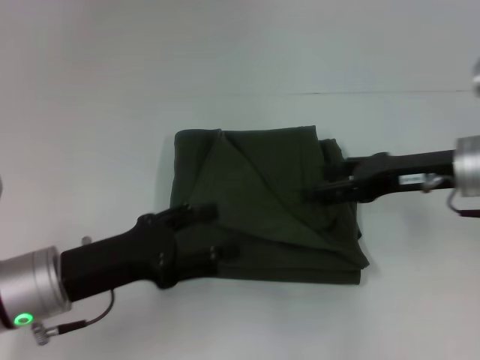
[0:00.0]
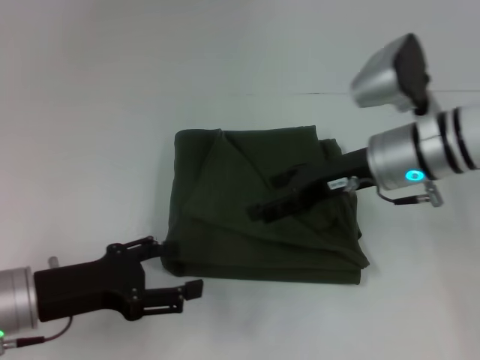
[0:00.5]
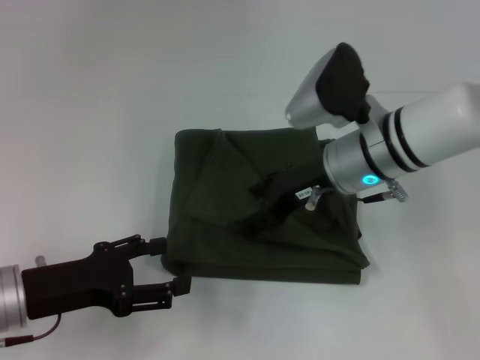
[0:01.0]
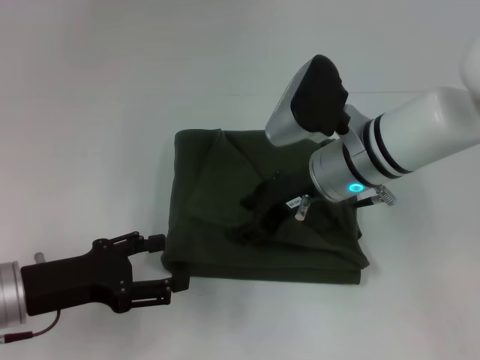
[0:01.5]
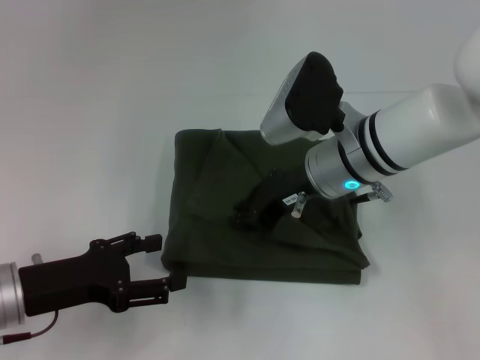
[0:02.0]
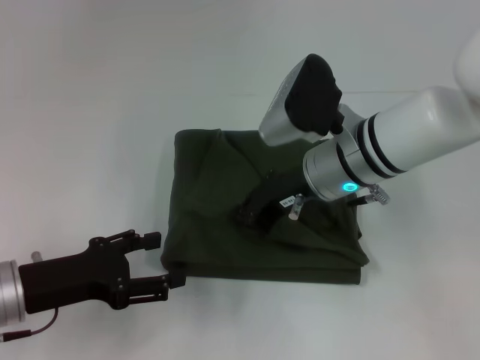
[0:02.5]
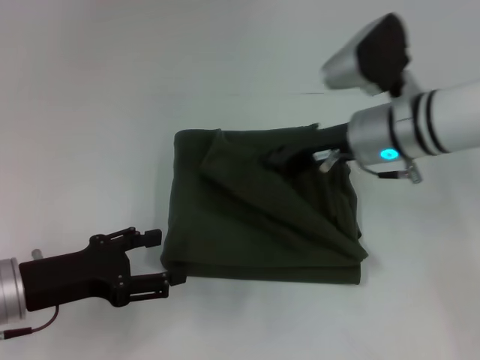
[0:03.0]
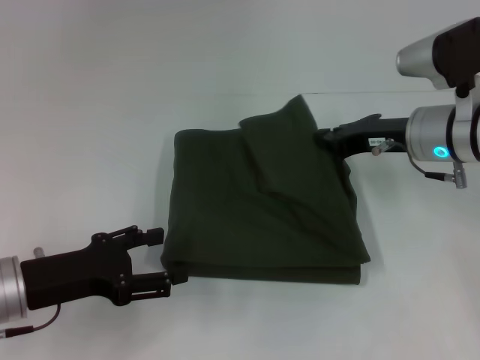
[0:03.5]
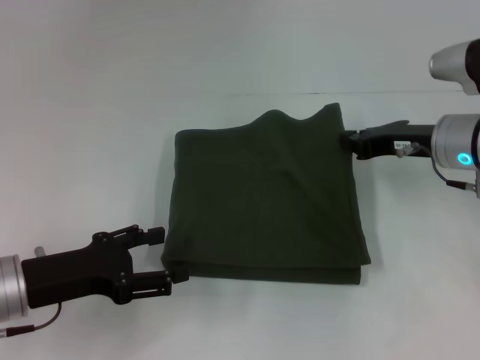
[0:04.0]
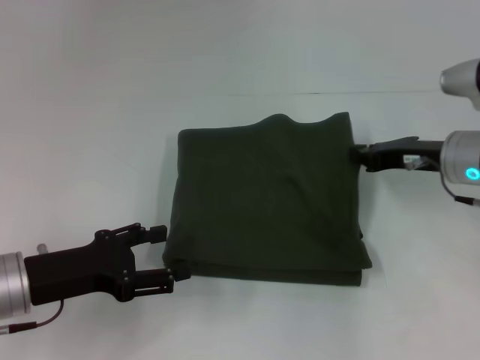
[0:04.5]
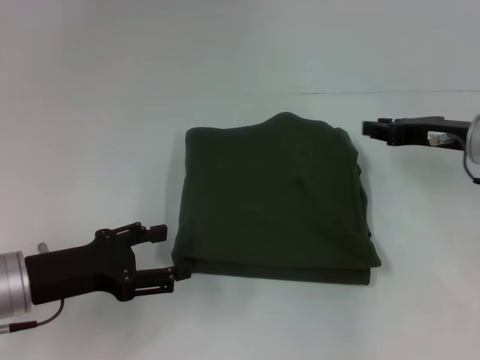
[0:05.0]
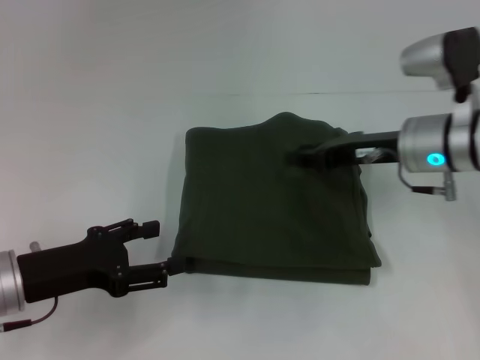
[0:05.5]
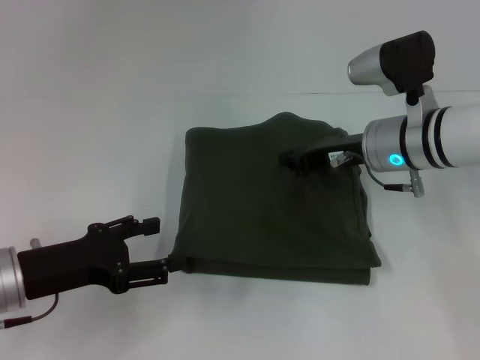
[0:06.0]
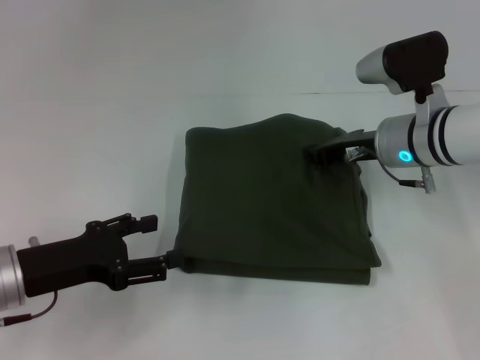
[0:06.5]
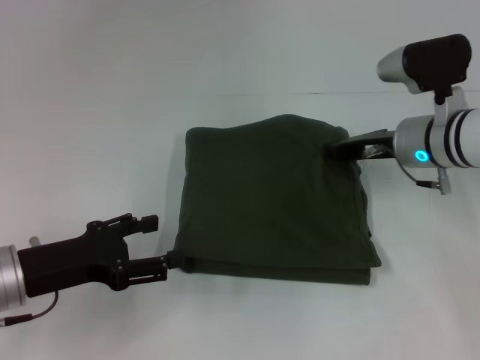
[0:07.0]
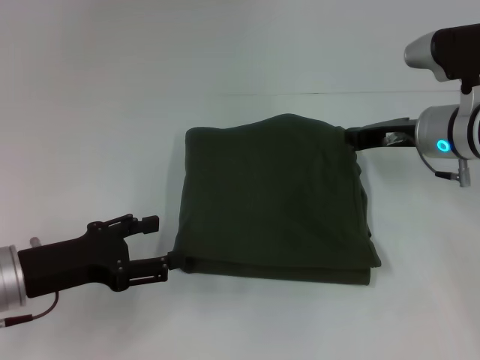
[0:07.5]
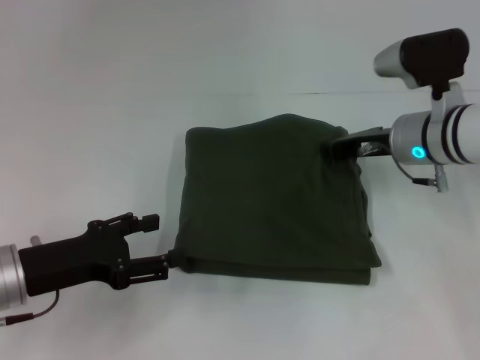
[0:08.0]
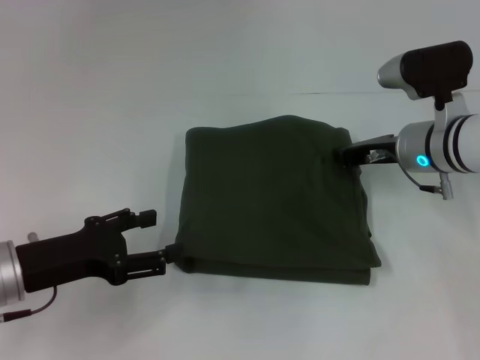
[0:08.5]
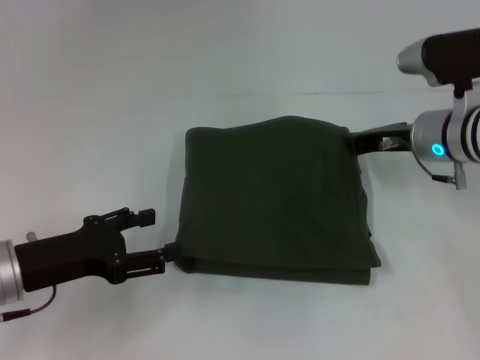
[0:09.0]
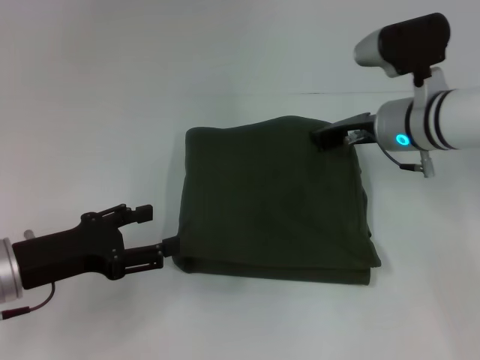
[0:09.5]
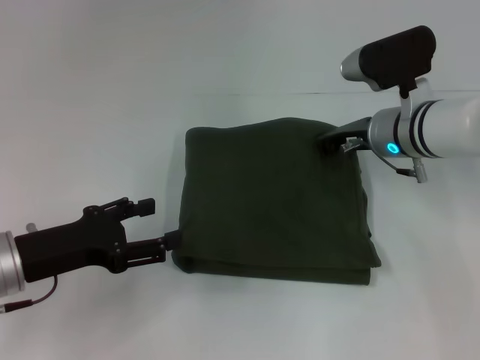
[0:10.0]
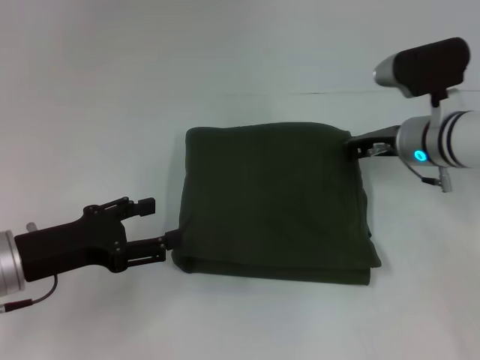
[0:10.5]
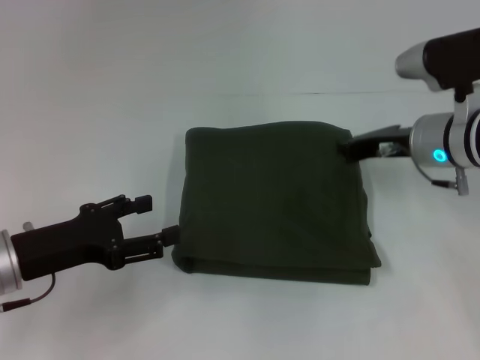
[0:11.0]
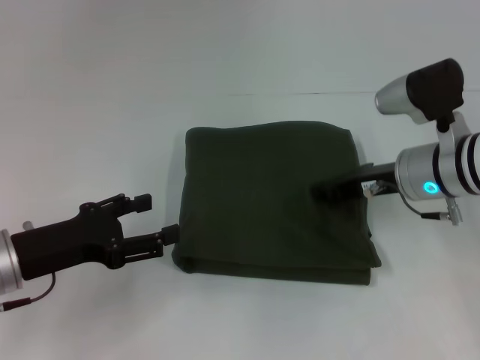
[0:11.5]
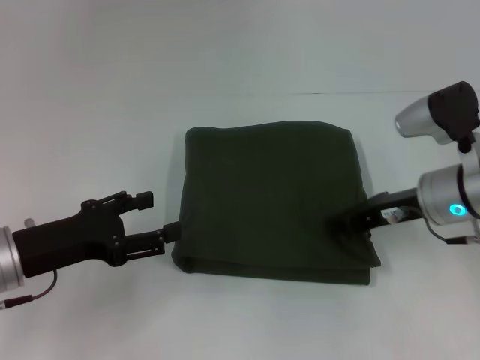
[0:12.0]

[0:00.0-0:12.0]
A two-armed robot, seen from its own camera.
0:00.0 to 0:02.0: The right gripper heads to the left, covering approximately 15 cm, and closes its fingers.
0:02.0 to 0:04.0: The right gripper is displaced to the right by roughly 15 cm.
0:04.0 to 0:06.0: The right gripper moves to the left, some 5 cm.
0:06.0 to 0:10.0: The grippers move only a little.
0:10.0 to 0:12.0: The right gripper heads backward, covering some 5 cm.

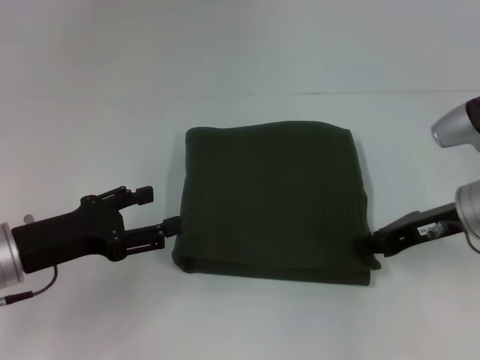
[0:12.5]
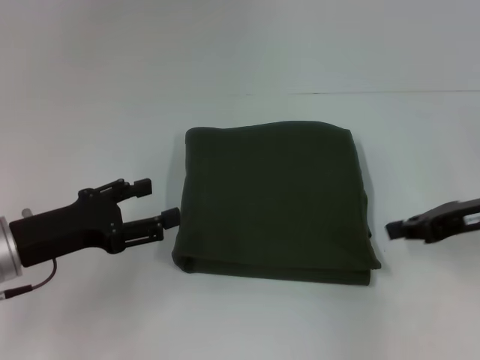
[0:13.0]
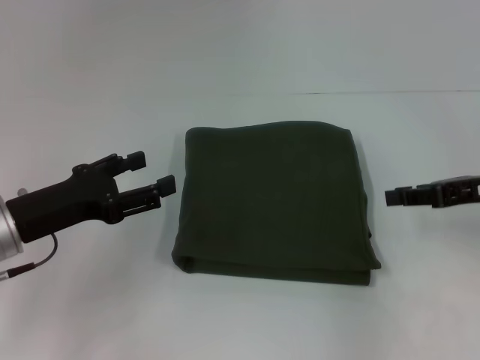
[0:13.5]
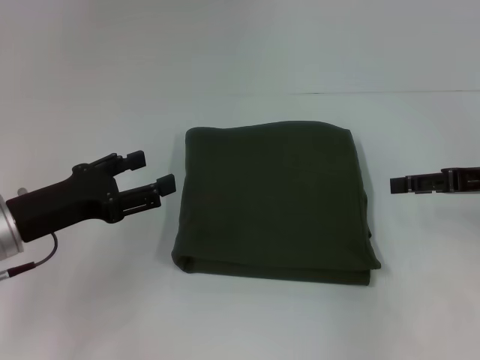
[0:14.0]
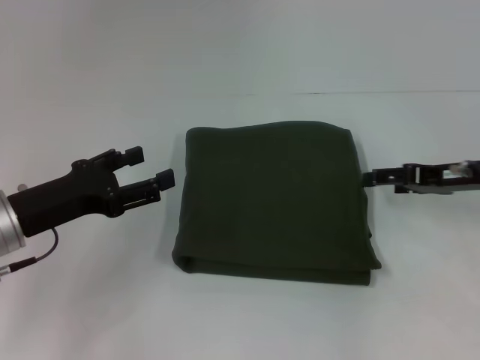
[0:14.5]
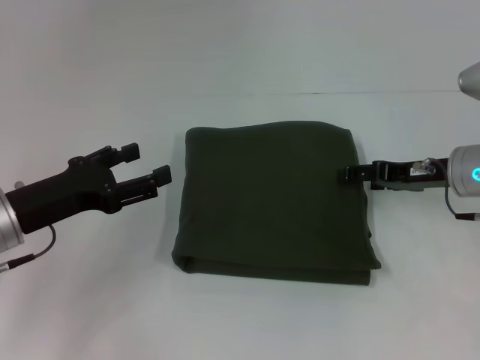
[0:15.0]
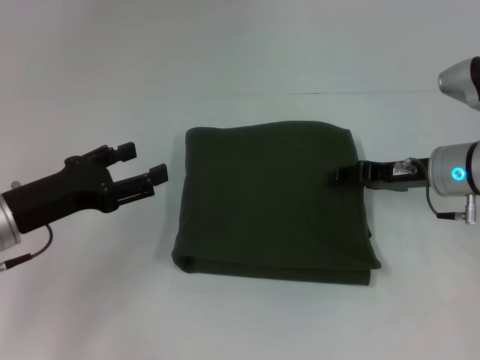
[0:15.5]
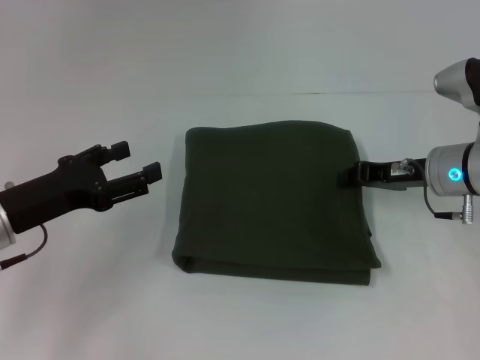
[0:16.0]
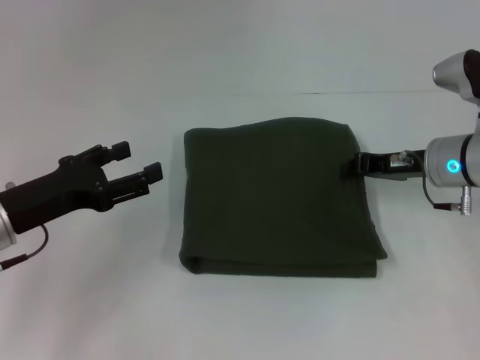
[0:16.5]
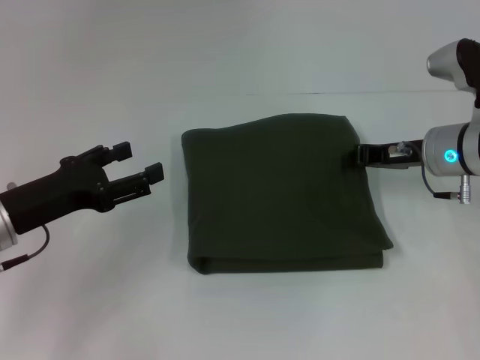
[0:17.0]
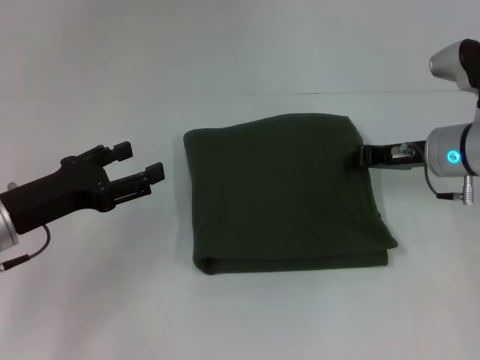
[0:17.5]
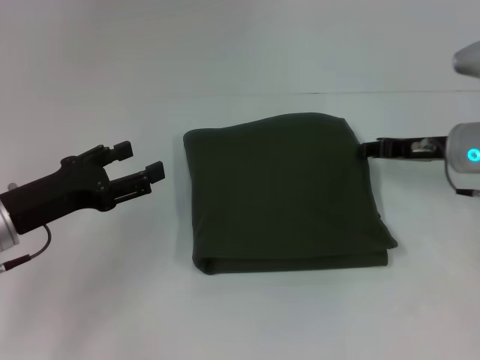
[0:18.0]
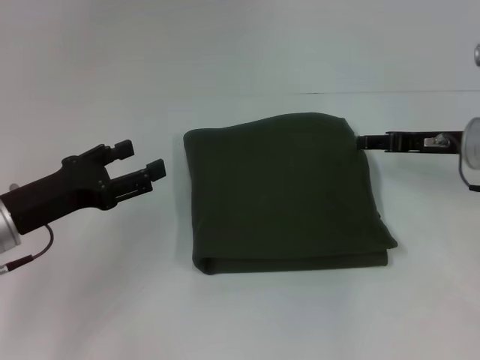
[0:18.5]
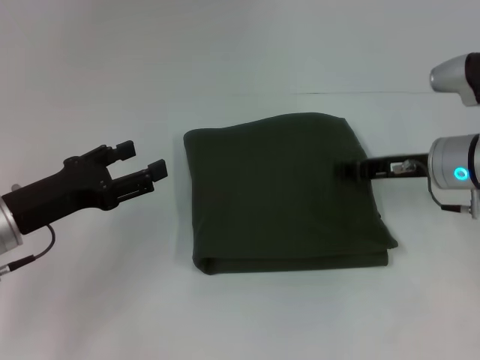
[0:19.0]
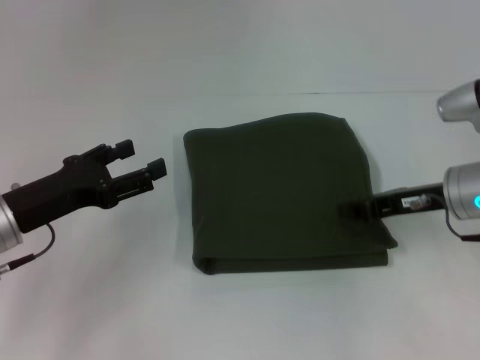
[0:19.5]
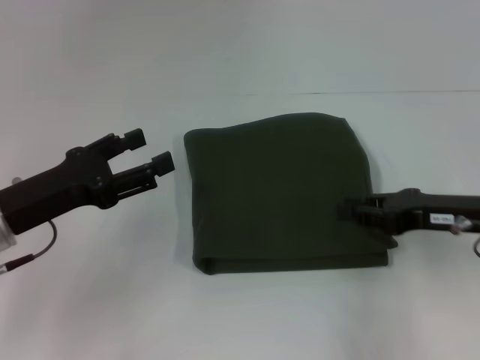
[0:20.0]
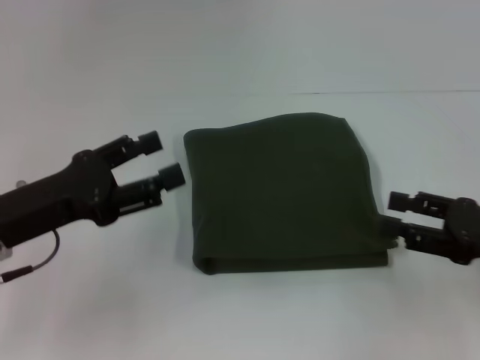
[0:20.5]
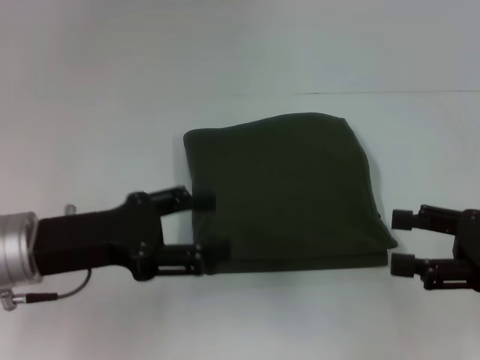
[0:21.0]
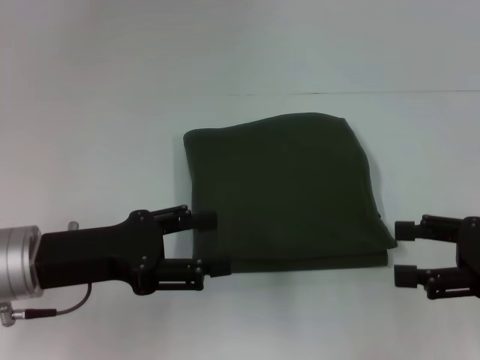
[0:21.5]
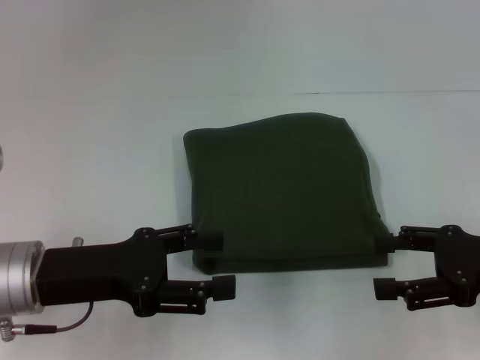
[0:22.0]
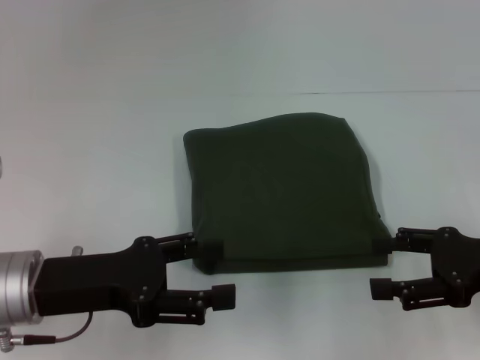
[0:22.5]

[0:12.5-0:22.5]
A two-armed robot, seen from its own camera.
0:12.5 to 0:14.5: The right gripper opens.
0:14.5 to 0:16.5: The right gripper heads to the left, covering approximately 5 cm, and closes up.
0:16.5 to 0:18.5: The right gripper opens up.
0:18.5 to 0:20.5: The right gripper moves backward, roughly 15 cm, and closes, then reopens.
0:20.5 to 0:22.5: The right gripper opens.

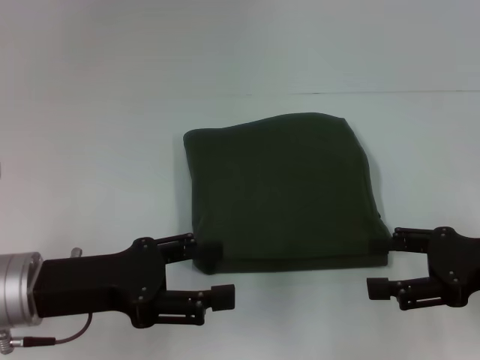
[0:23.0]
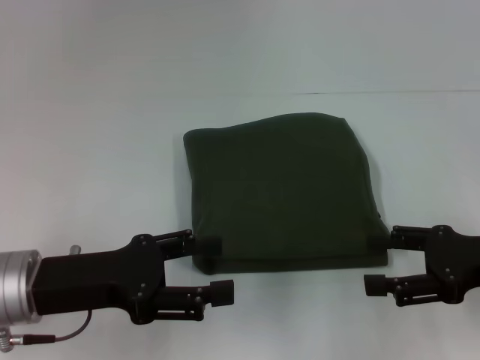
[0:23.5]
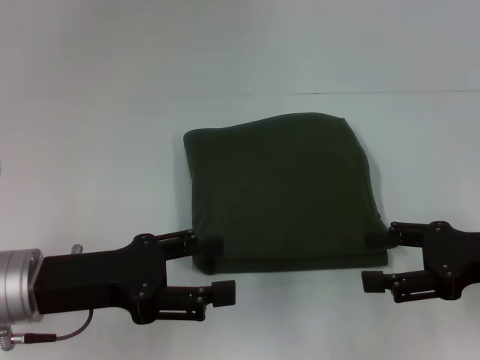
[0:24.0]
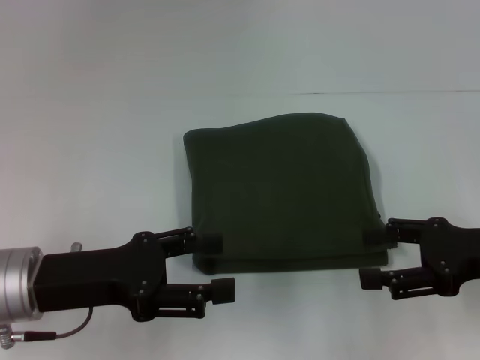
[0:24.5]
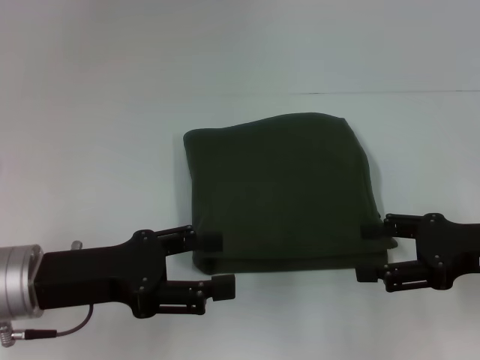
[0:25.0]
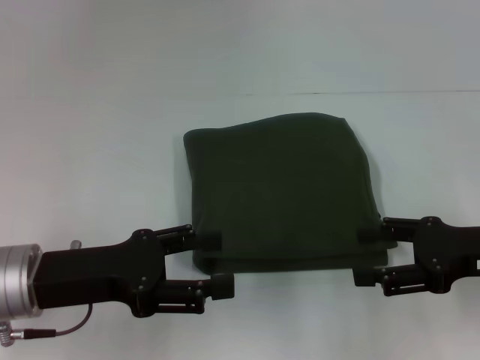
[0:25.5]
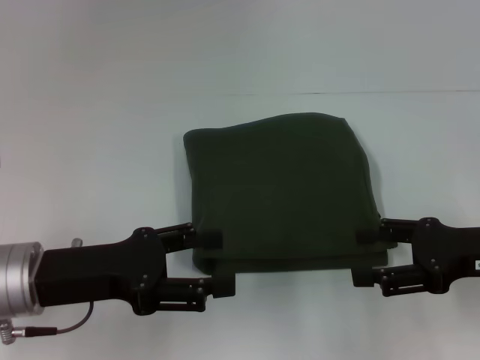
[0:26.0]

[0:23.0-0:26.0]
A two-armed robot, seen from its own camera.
0:23.0 to 0:24.5: Neither gripper changes place.
0:24.5 to 0:26.0: The two grippers keep their place.

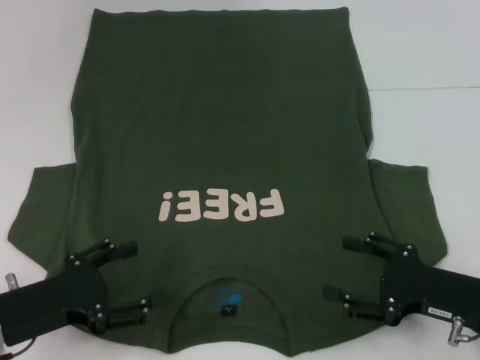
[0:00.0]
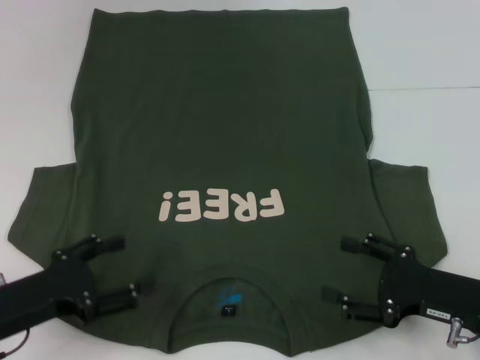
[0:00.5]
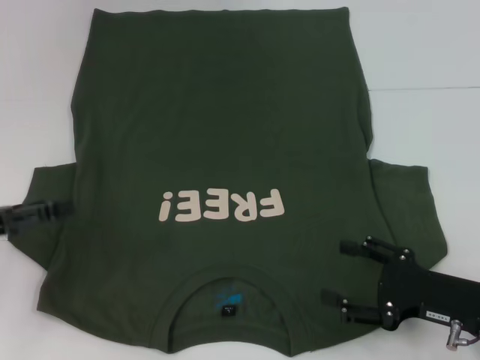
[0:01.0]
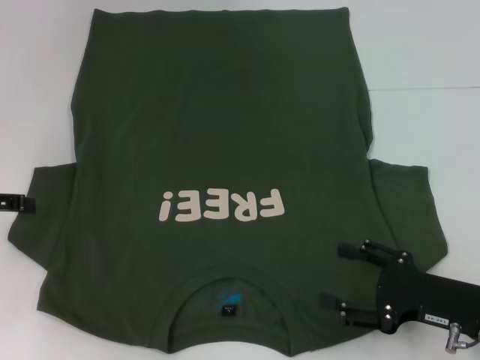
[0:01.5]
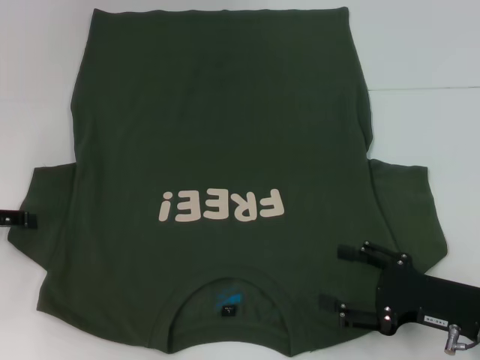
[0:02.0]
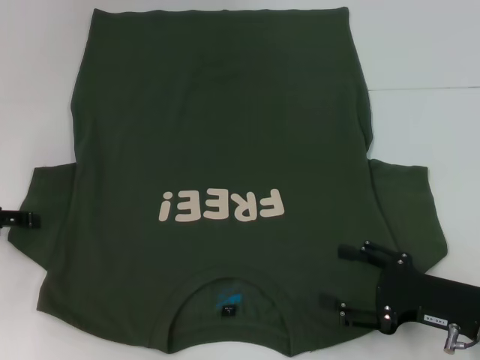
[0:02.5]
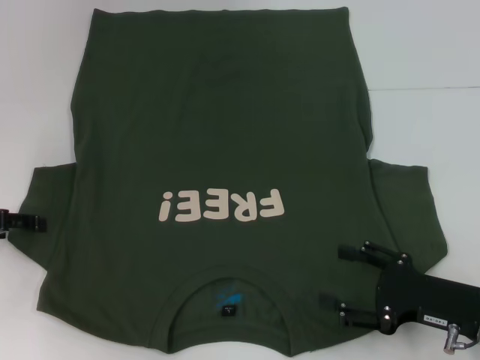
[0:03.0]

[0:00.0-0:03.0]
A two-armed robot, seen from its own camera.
0:00.0 to 0:01.5: The left gripper heads forward, to the left and upward, covering some 15 cm.
0:01.5 to 0:03.0: The grippers make only small movements.
